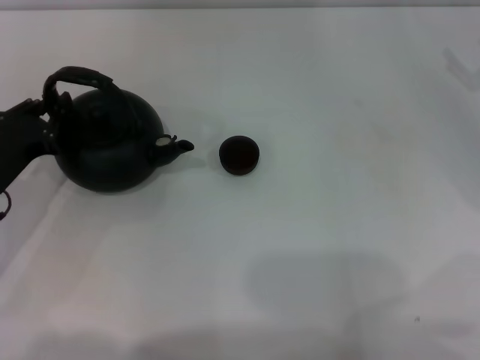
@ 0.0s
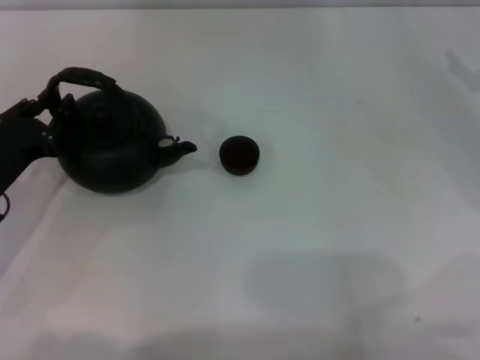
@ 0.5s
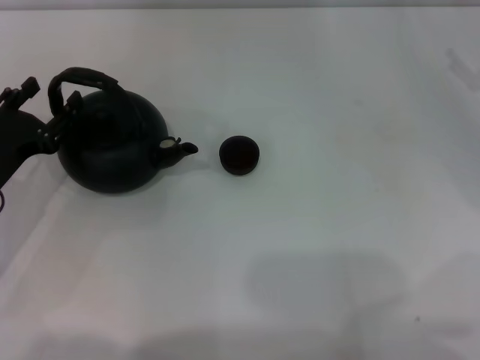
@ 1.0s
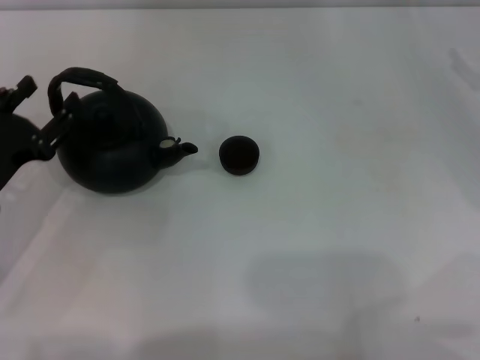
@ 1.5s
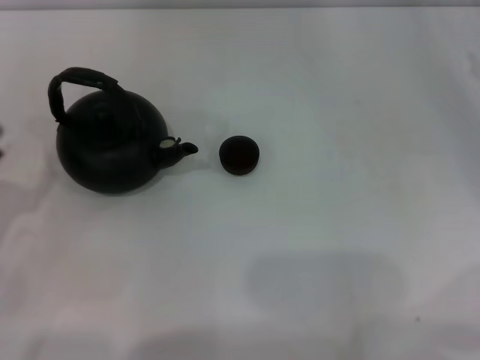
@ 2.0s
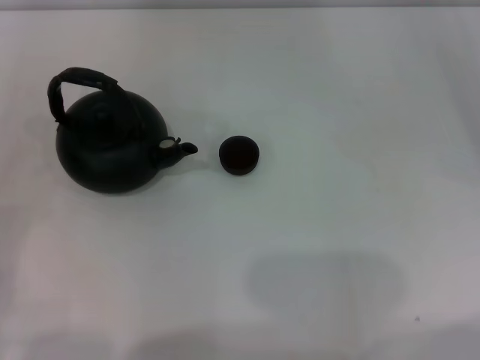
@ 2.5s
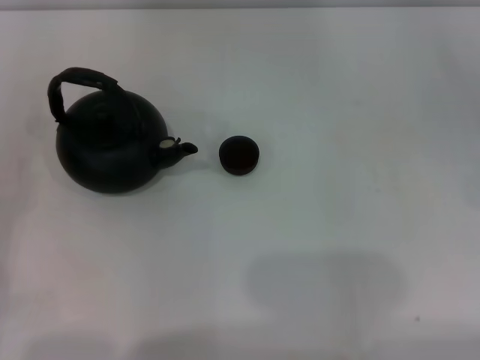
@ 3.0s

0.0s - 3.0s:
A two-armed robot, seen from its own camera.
Task of the whole recording: Grasp the handle of the teapot with one hand and pour tea into the teacup.
0.0s - 1.5s: The left gripper opens up.
1.5s - 3.0s: The left gripper is displaced backward and to the left by some 15 cm.
